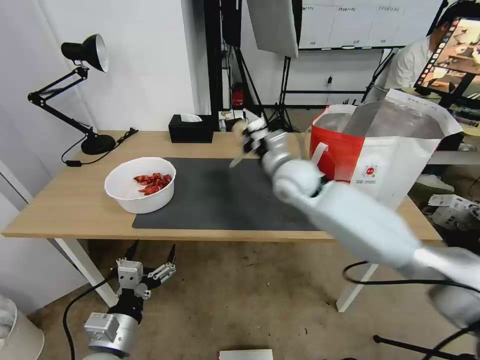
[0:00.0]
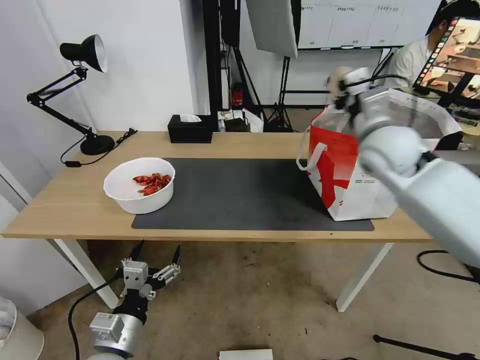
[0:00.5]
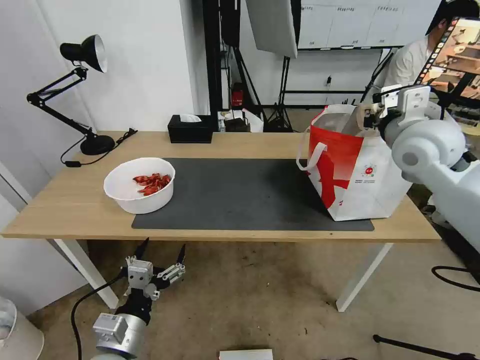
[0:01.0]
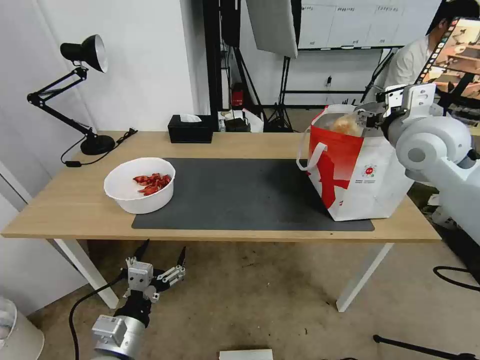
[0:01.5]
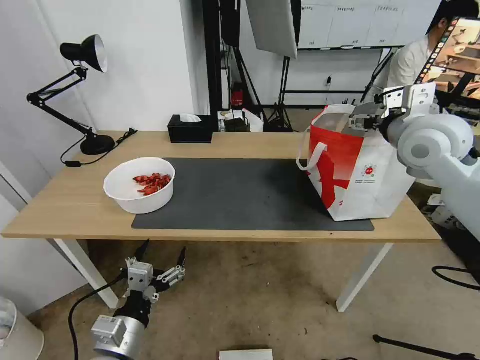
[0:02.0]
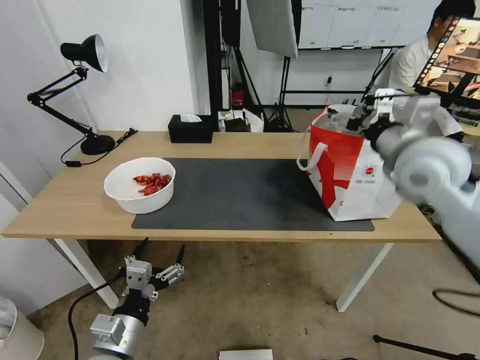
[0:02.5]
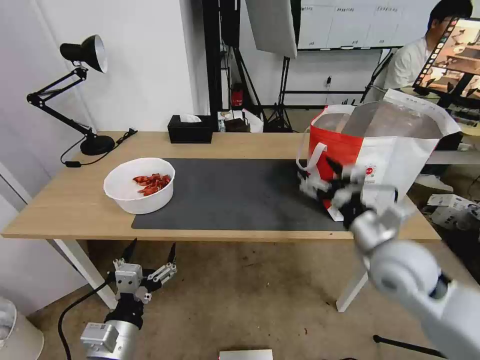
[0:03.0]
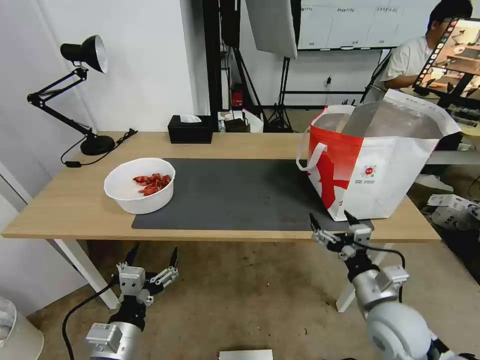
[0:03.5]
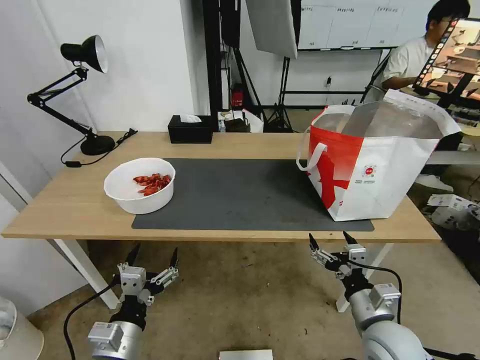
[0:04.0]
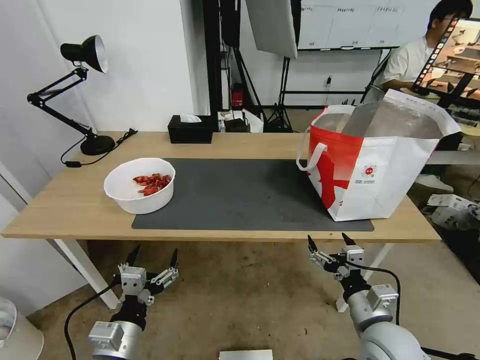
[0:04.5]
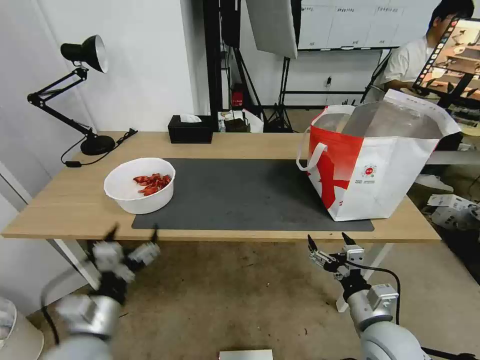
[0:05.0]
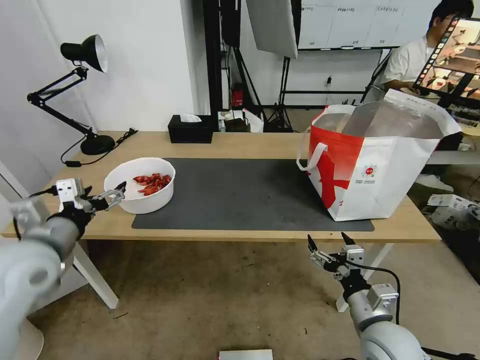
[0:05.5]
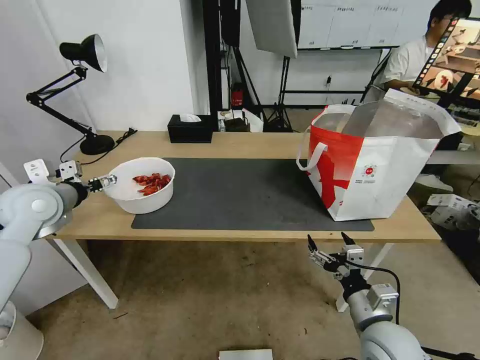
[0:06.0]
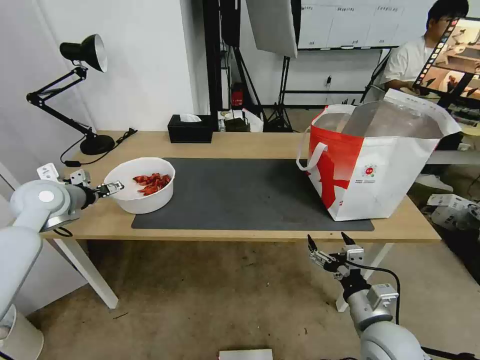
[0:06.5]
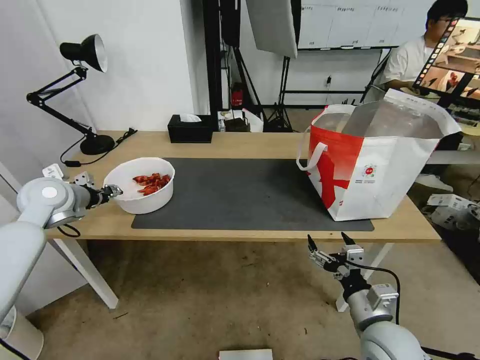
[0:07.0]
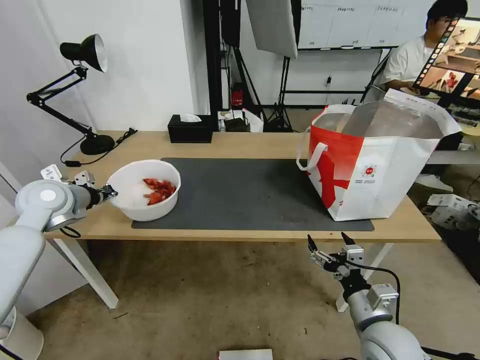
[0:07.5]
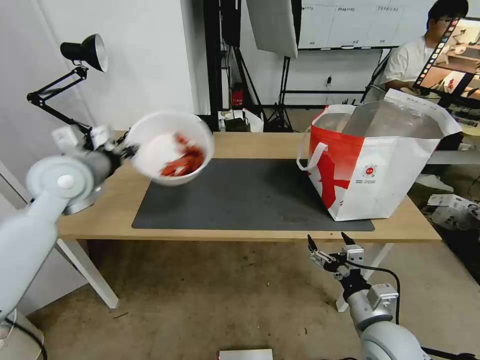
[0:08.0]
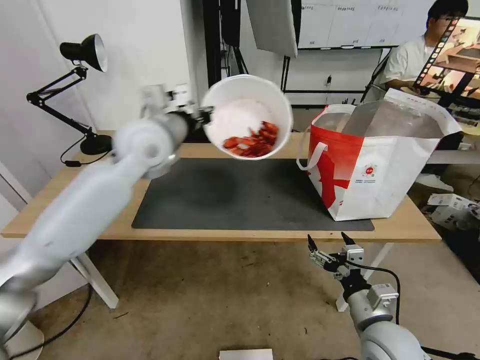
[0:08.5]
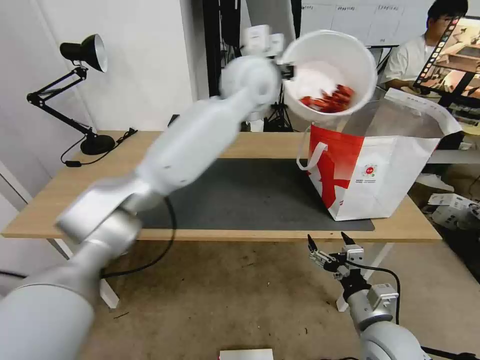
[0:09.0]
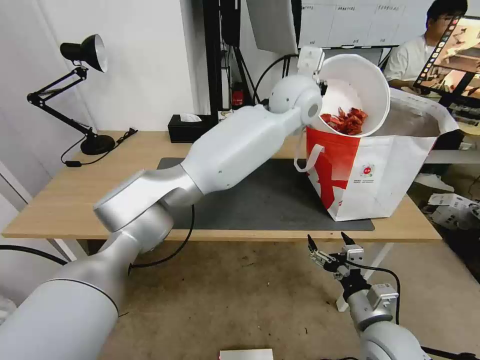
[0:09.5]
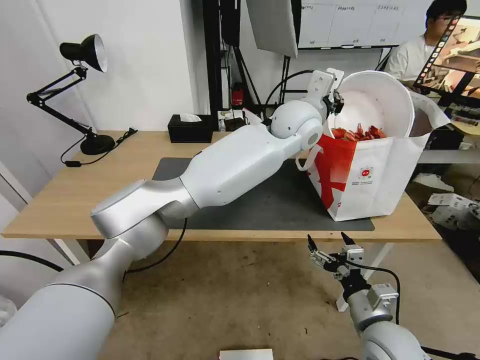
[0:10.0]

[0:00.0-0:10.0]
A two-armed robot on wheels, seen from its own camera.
Task of the whole recording: Pick up the trash from the table and place it into the takeout bag.
0:00.0 to 0:02.0: The right gripper shifts approximately 25 cm to the right and upward, and opens.
0:02.0 to 0:04.0: The right gripper heads downward and backward, covering approximately 40 cm.
0:04.0 to 0:06.0: The left gripper heads forward, upward and to the left, covering approximately 35 cm.
0:06.0 to 0:08.0: The left gripper moves to the right and upward, approximately 10 cm, and closes its fingers.
0:08.0 to 0:10.0: The left gripper goes approximately 40 cm to the right.

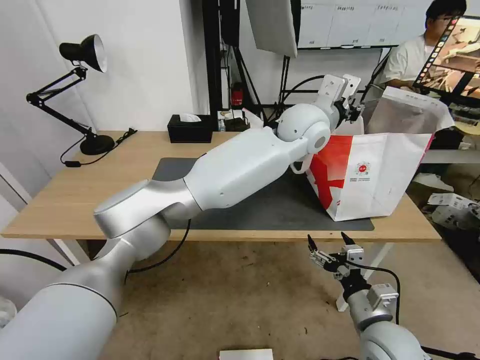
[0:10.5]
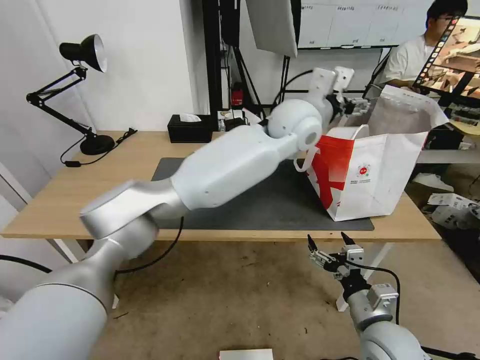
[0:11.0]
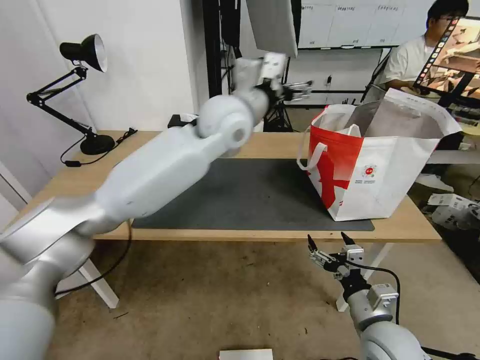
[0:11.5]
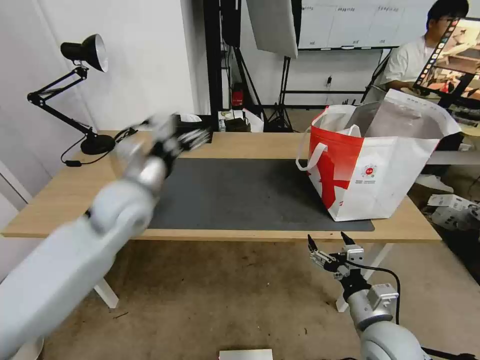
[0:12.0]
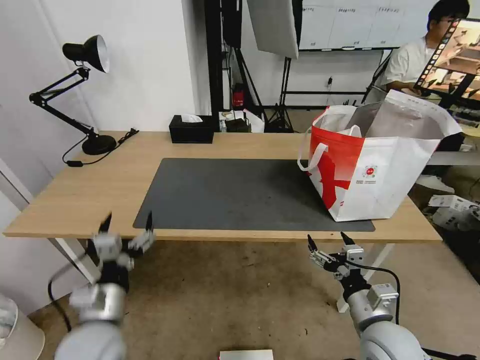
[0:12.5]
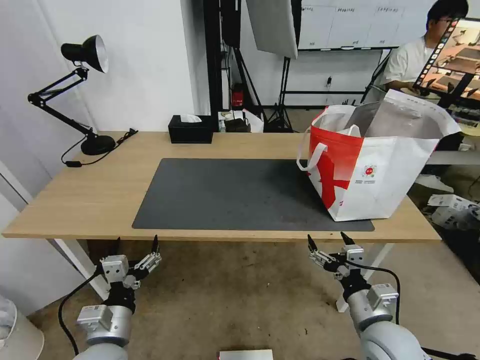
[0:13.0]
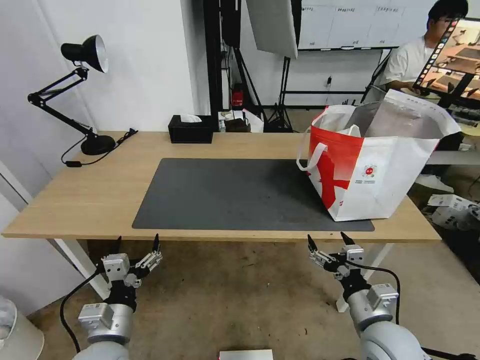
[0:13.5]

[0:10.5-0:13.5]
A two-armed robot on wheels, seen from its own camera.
Task of the whole recording: Pick up the trash from the table and place it into the takeout bag.
0:10.5 to 0:12.0: The left gripper shifts approximately 35 cm to the left, and opens its fingers.
0:12.0 to 0:13.5: The left gripper travels backward and downward by roughly 30 cm.

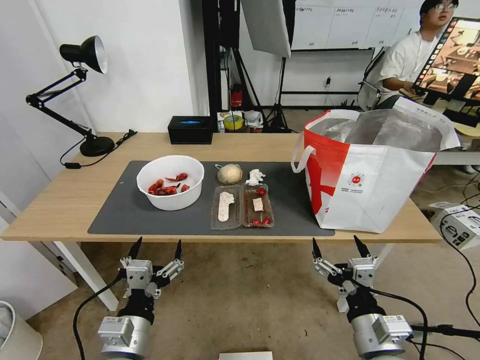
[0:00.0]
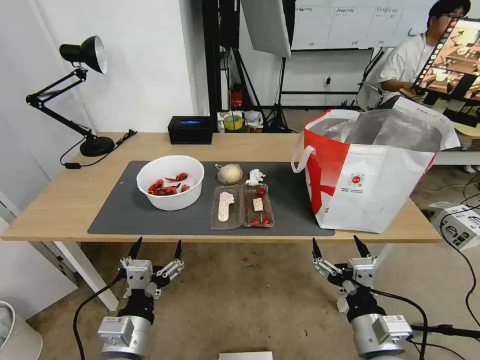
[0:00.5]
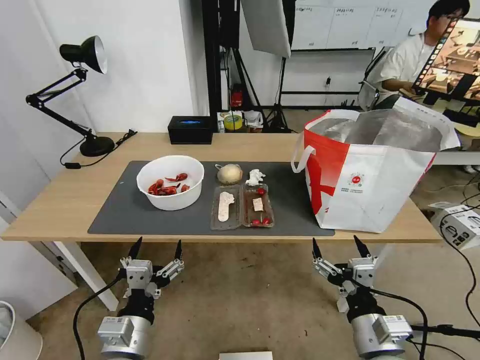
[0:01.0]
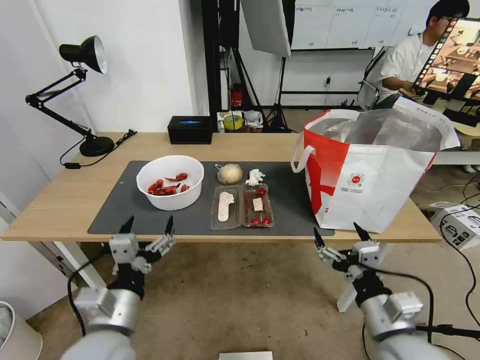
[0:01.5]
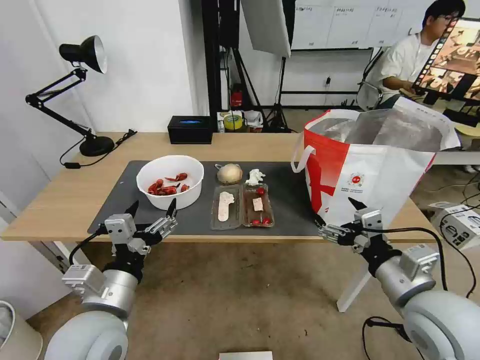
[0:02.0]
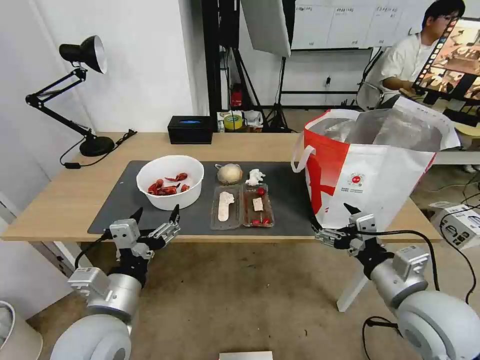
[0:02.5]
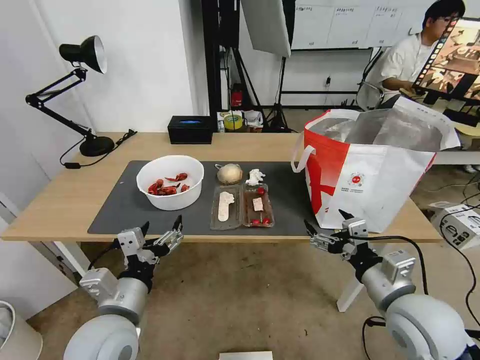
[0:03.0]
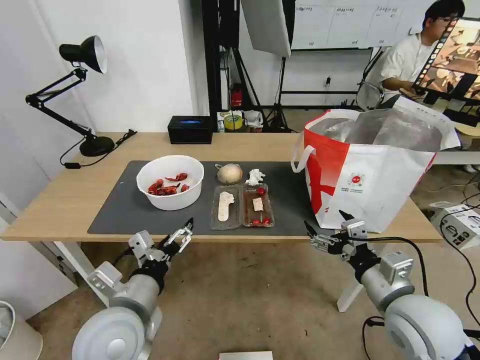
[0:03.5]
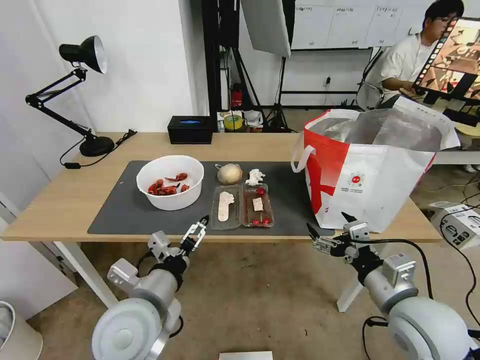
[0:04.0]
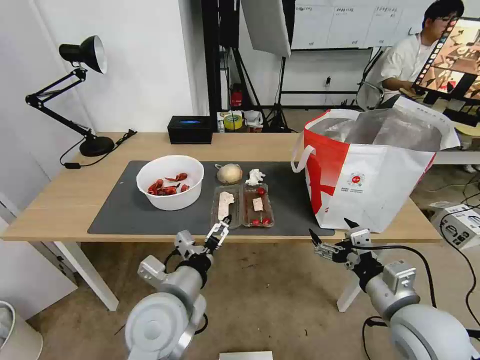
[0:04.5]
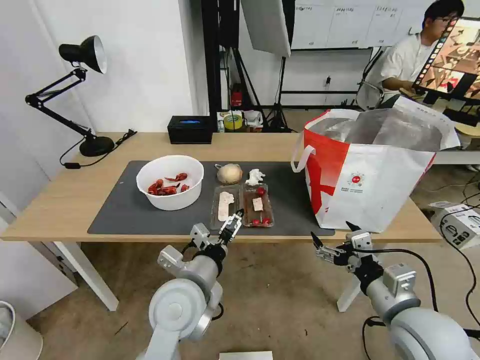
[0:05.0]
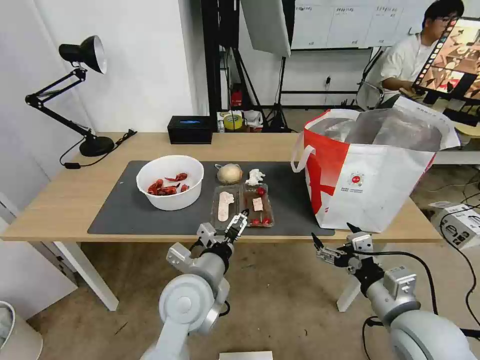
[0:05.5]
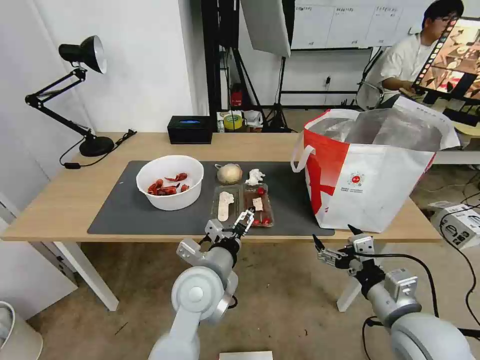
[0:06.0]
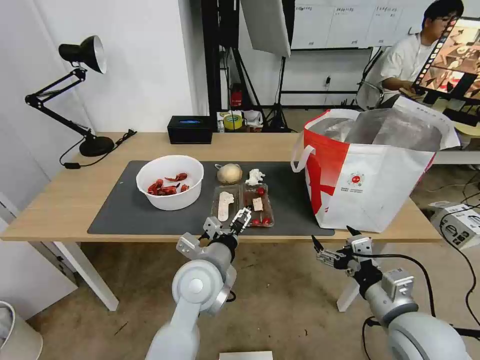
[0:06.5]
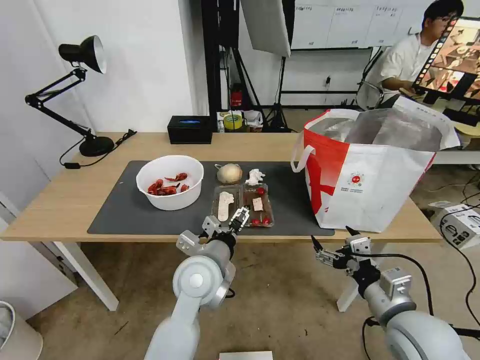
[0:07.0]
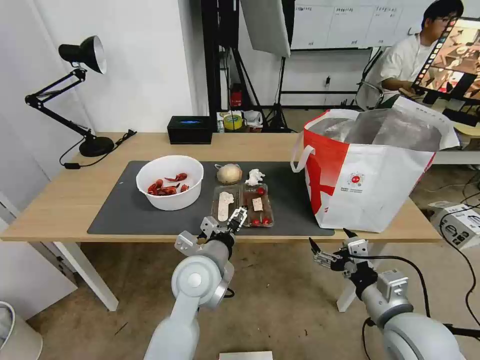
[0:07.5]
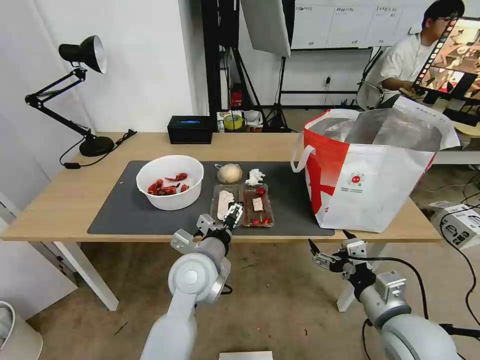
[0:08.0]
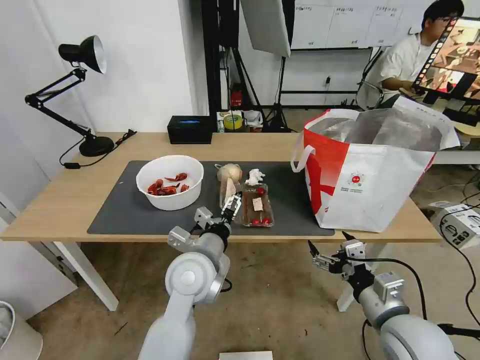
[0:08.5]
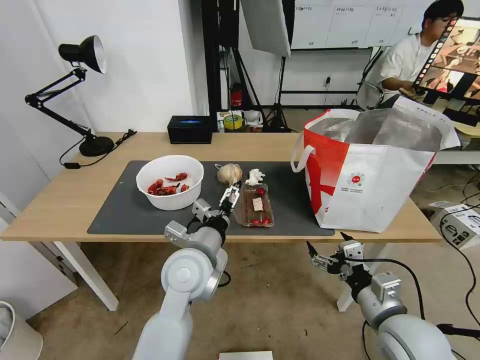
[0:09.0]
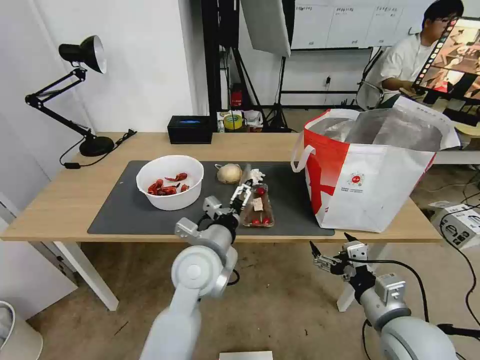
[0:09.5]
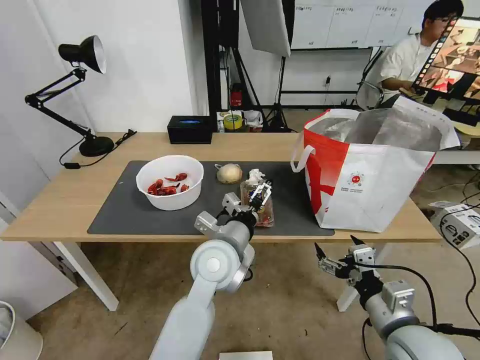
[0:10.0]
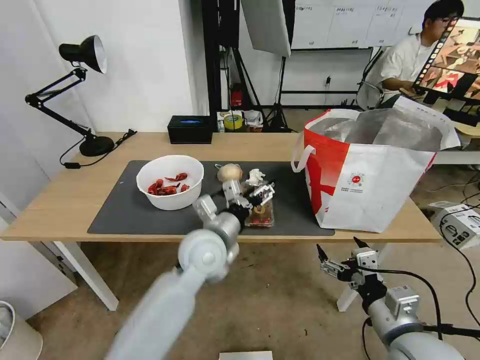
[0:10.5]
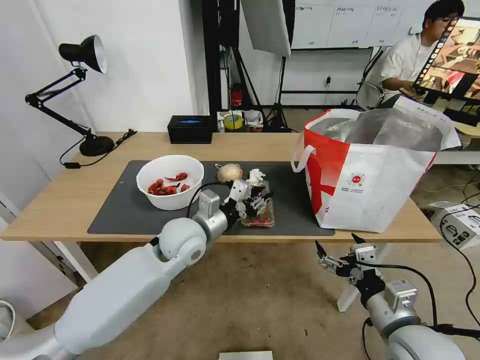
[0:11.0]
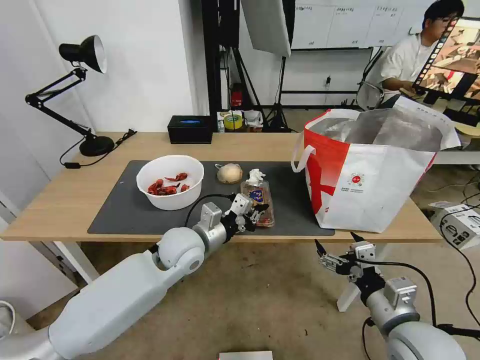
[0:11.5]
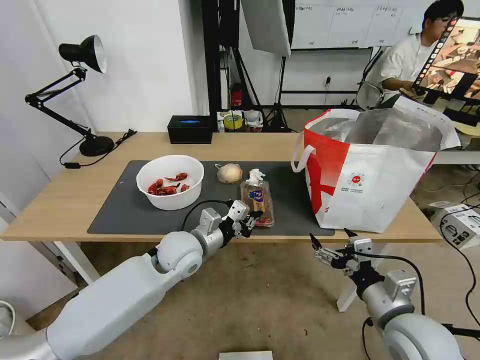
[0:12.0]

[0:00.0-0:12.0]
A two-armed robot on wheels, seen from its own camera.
Task of the whole recording: Pick up the trash from the table and place it into the takeout bag.
0:02.0 to 0:04.0: The left gripper shifts by some 5 cm.
0:04.0 to 0:06.0: The left gripper is displaced to the right and forward by some 10 cm.
0:06.0 to 0:08.0: The grippers stay close to where they were, moving slightly.
0:08.0 to 0:10.0: The left gripper ends up roughly 5 cm from where it was.
0:10.0 to 0:12.0: The left gripper travels to the left and forward by approximately 10 cm, and closes up.
